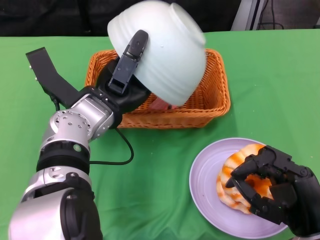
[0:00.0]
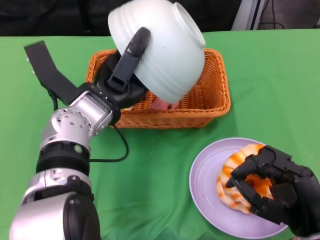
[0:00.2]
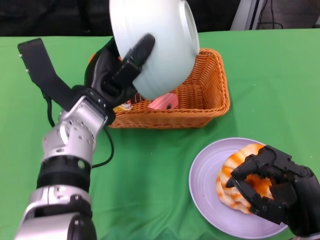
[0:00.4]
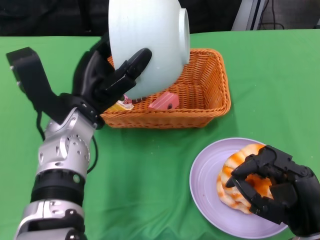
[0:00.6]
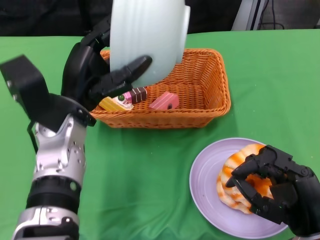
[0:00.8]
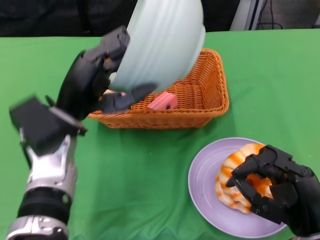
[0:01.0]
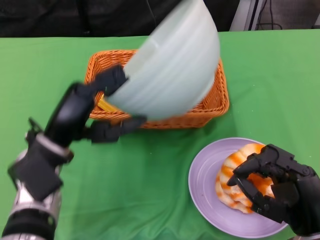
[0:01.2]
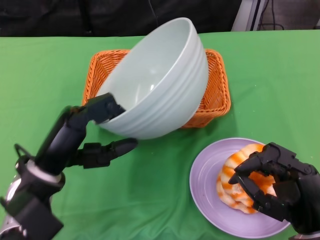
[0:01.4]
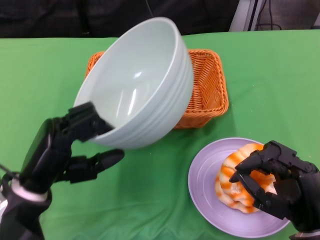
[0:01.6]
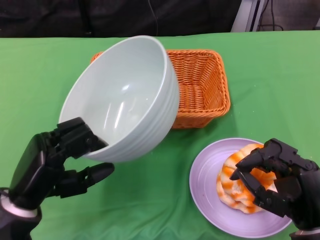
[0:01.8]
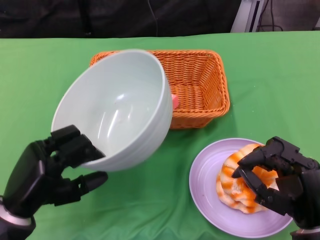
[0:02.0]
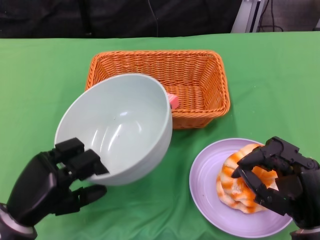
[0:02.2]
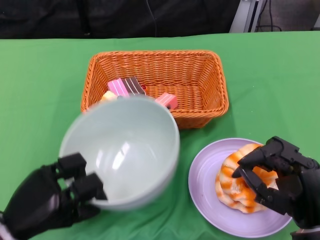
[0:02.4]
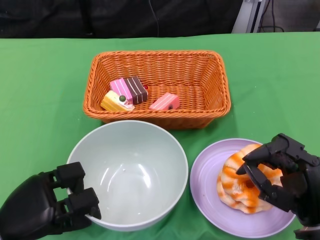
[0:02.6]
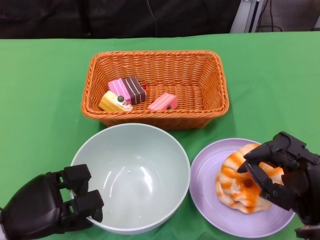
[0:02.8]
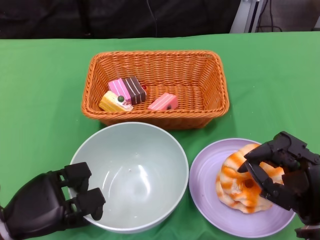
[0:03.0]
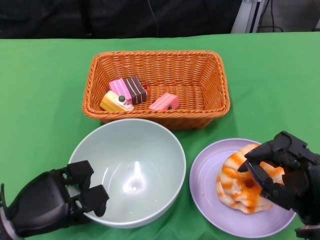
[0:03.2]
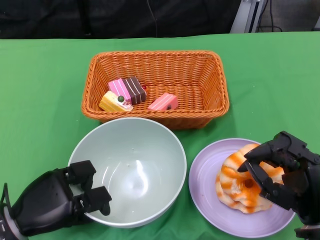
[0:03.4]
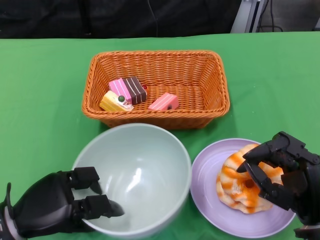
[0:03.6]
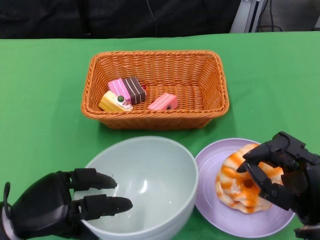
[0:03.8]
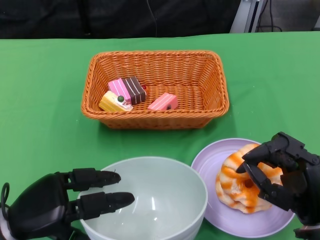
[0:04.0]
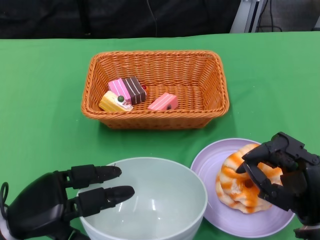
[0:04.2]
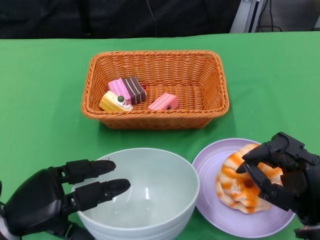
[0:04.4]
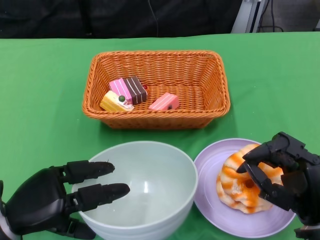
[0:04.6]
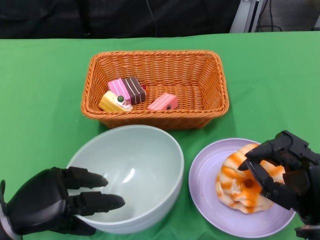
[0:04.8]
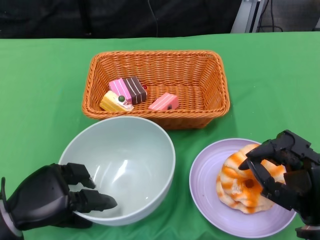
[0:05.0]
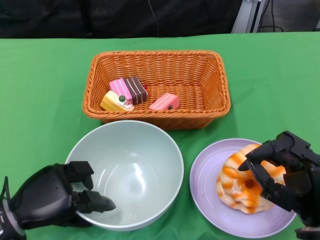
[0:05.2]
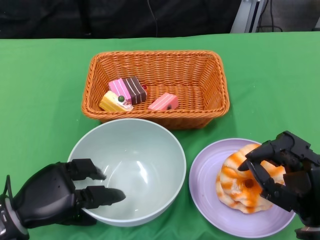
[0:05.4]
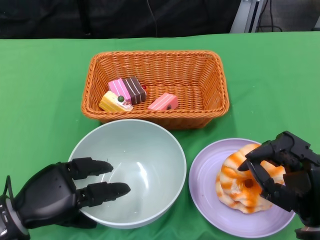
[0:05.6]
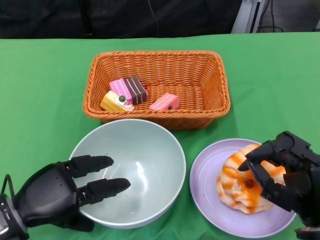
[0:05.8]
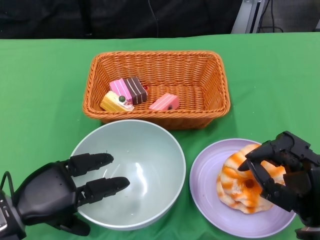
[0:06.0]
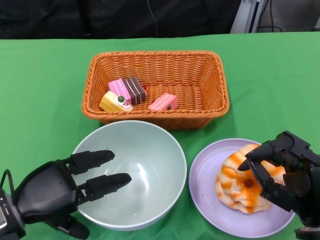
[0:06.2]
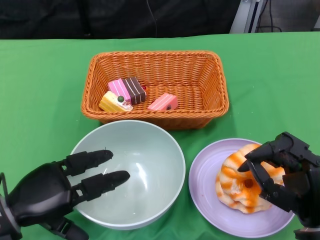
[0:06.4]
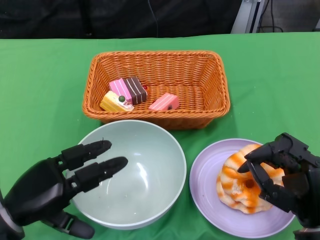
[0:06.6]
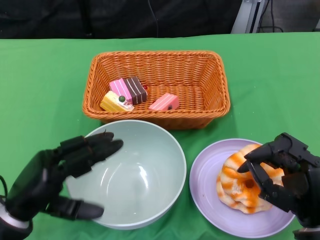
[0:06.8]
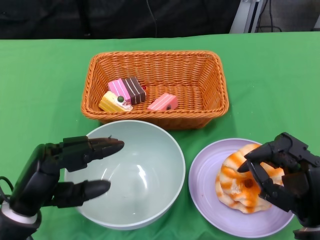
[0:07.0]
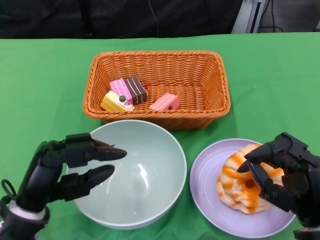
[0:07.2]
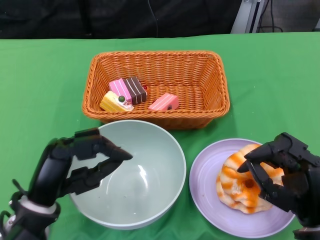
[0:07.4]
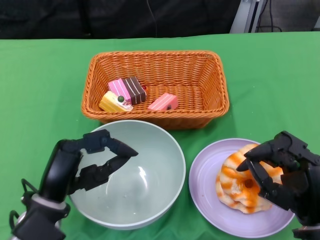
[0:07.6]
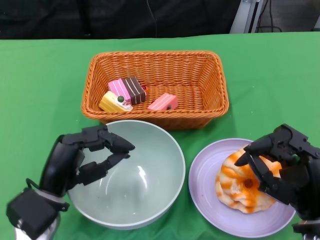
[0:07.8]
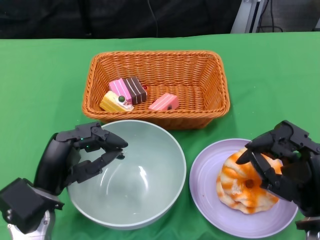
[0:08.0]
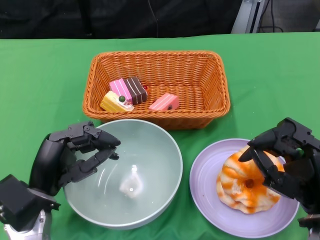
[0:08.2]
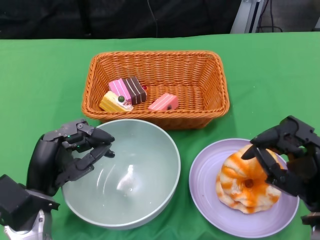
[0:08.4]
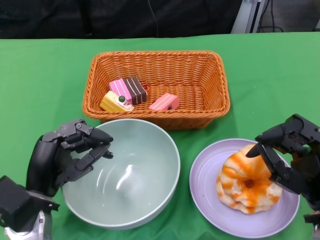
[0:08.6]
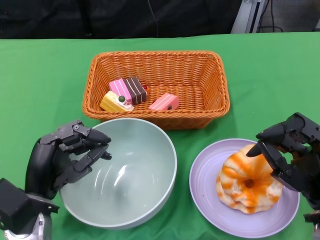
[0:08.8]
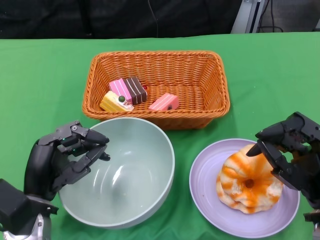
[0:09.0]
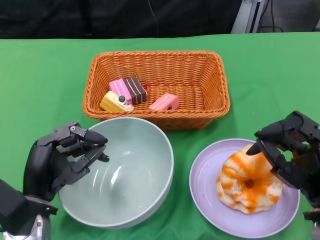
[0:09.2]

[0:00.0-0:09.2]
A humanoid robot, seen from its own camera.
Step, 0:00.0 to 0:06.6: Place the bowl on the table with the left gripper.
0:00.0 to 0:01.6: The left hand travels backward, to the left and downward by roughly 15 cm.
0:01.6 to 0:03.0: The left hand is displaced downward by about 5 cm.
0:03.0 to 0:06.2: There are only small adjustments of the hands.
0:06.2 to 0:07.6: The left hand moves to the right, approximately 5 cm.
